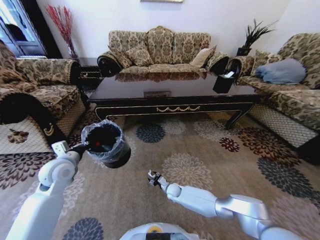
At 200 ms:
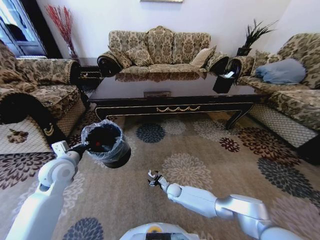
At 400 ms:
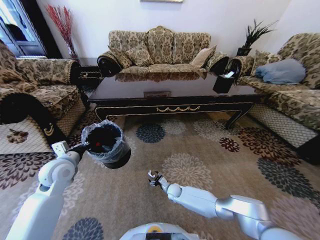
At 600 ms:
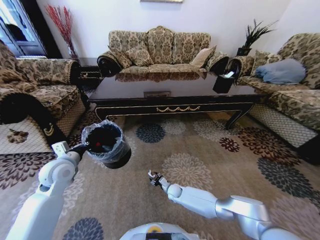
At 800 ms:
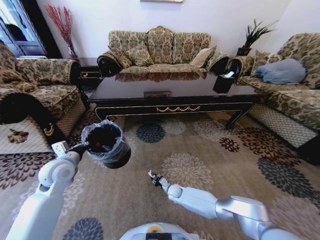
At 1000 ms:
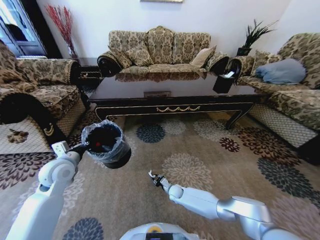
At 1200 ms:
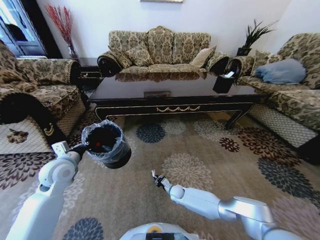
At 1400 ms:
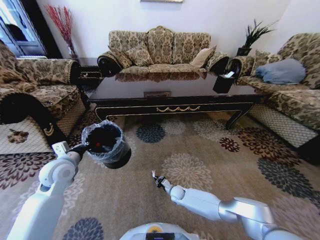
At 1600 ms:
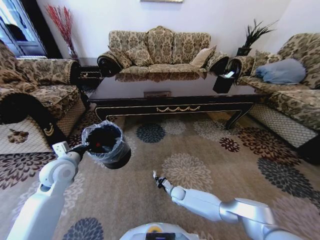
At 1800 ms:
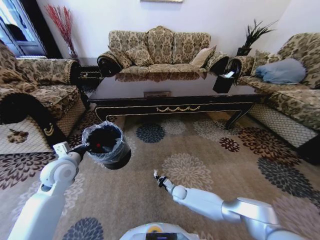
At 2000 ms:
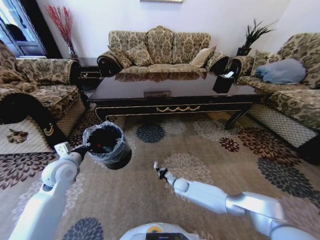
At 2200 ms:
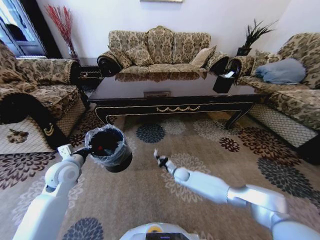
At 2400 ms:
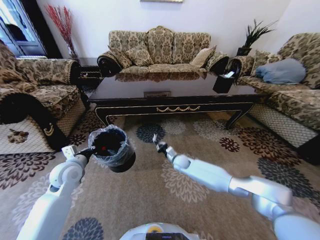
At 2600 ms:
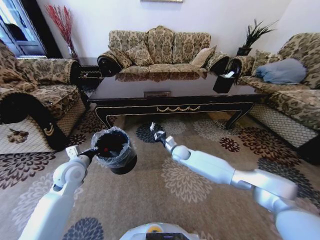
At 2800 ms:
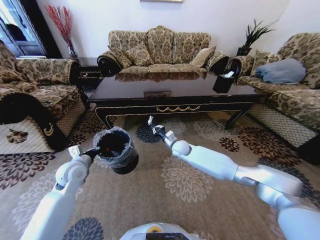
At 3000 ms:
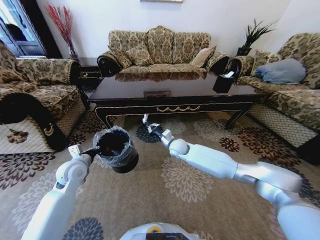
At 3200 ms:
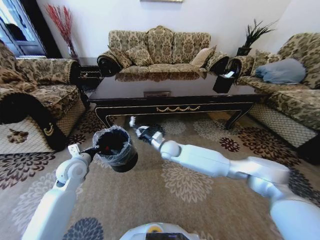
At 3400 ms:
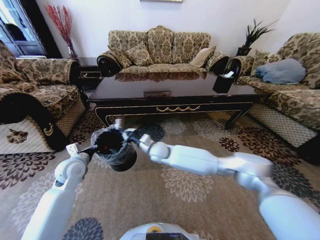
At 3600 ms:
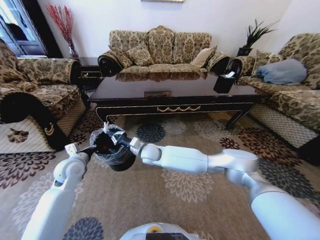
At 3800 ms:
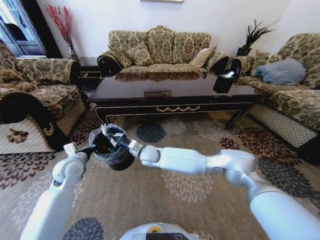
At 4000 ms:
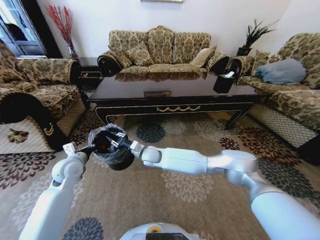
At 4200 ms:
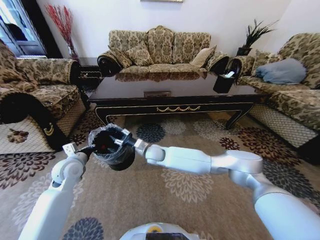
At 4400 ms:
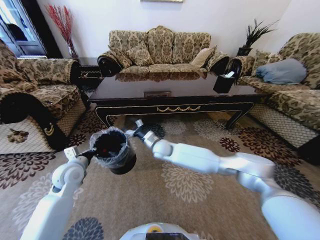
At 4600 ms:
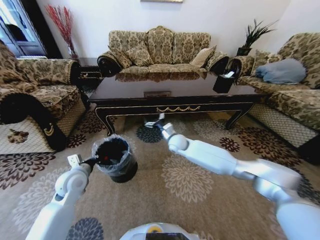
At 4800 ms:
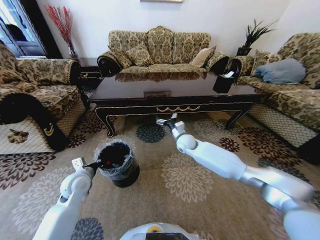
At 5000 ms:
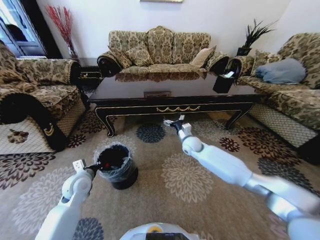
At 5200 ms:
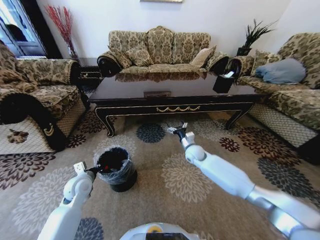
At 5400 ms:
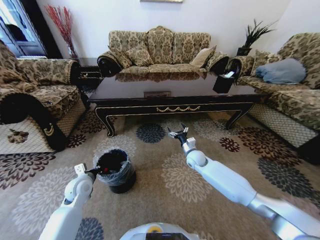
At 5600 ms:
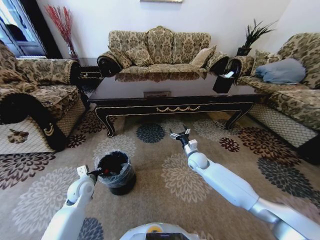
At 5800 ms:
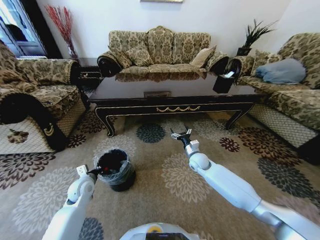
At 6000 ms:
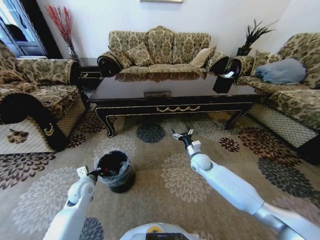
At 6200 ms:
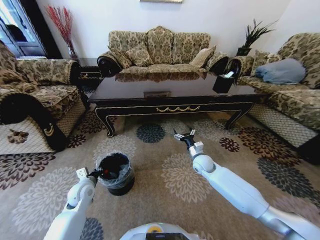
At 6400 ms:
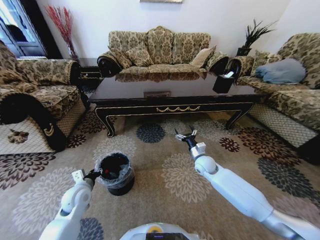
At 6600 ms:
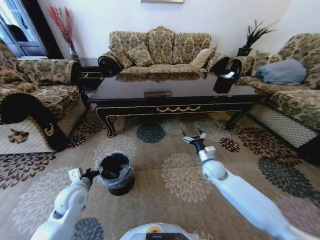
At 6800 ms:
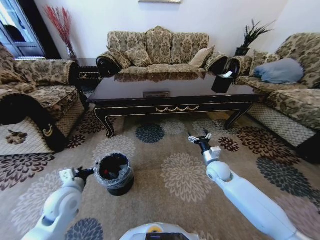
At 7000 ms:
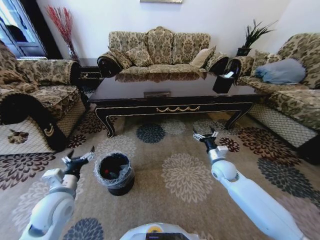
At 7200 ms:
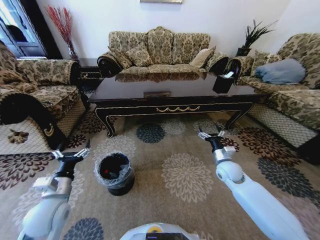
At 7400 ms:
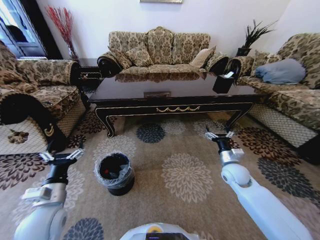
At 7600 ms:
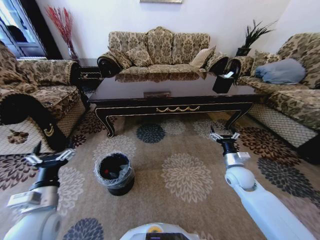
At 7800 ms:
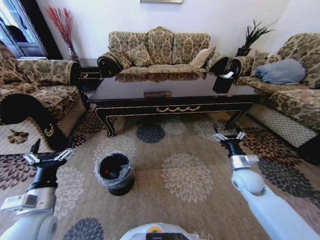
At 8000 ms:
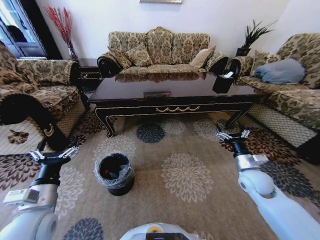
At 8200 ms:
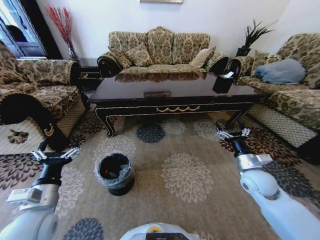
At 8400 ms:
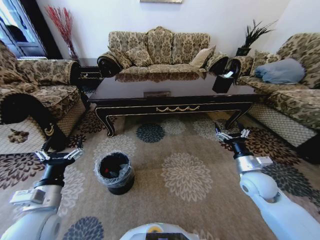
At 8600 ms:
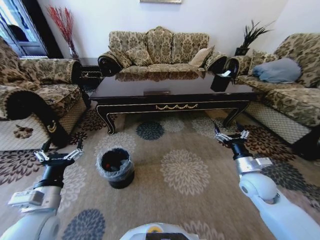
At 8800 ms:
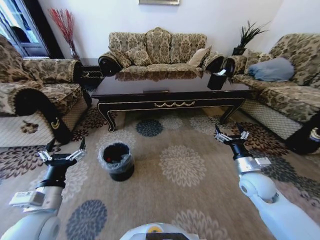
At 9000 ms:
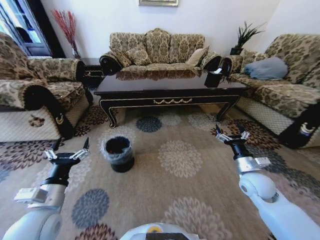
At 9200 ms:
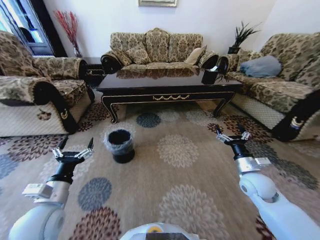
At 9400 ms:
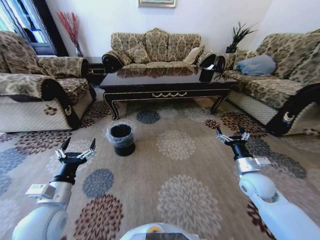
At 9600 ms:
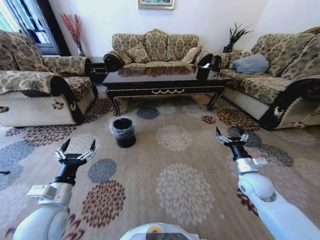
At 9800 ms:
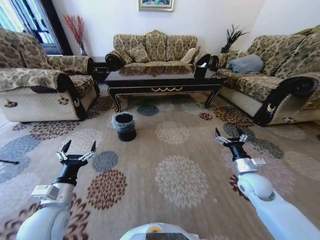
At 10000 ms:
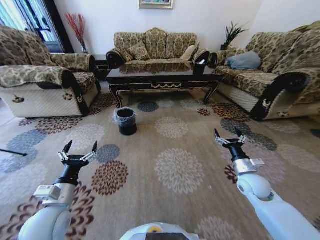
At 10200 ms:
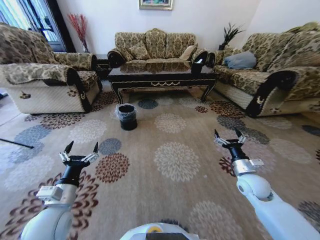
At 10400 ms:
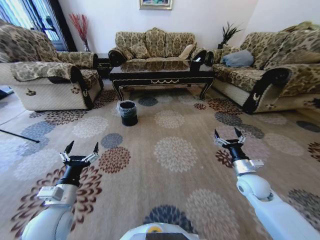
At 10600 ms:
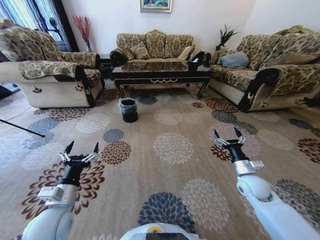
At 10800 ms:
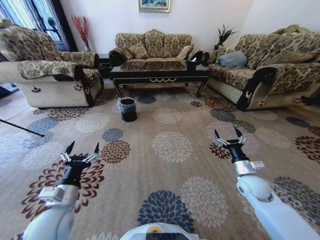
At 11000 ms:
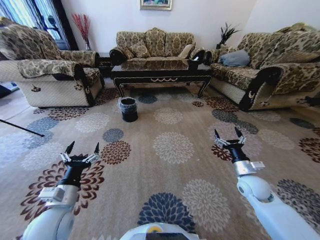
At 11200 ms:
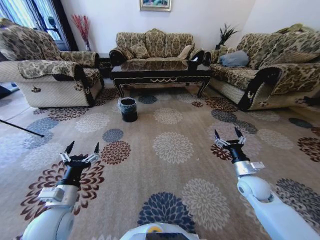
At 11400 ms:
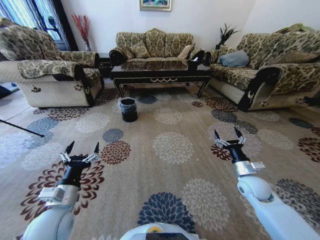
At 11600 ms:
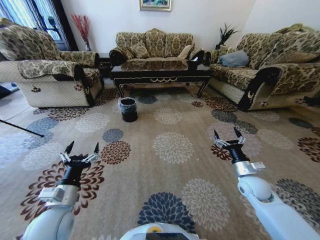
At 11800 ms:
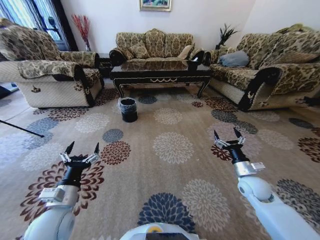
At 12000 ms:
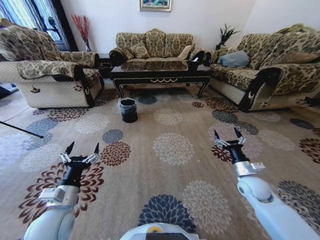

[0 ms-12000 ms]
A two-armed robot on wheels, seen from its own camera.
Task of the whole recording: Move to the front of the table and pick up the trash from the floor, then place it into the trash bin.
0 ms to 1600 ms: The right gripper closes up.
1600 ms to 3000 ms: The right gripper moves upward and forward, approximately 30 cm.
3000 ms to 4400 ms: The right gripper moves to the left, some 5 cm, and opens up.
4400 ms to 6000 ms: The right gripper goes roughly 20 cm to the right. The left gripper heads downward, covering roughly 10 cm.
6000 ms to 7600 ms: The left gripper shifts some 20 cm backward and upward, and opens its fingers. Meanwhile the right gripper is displaced to the right and backward by some 15 cm.
7600 ms to 9000 ms: The right gripper changes place by some 5 cm.

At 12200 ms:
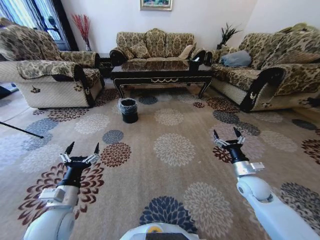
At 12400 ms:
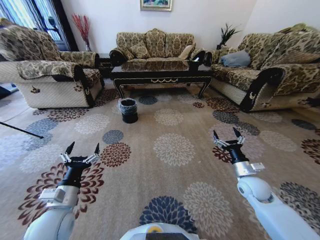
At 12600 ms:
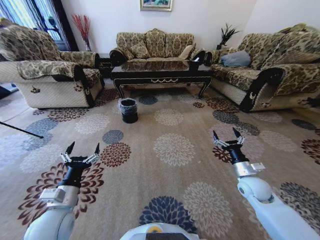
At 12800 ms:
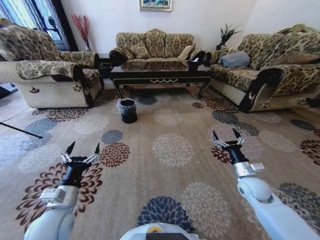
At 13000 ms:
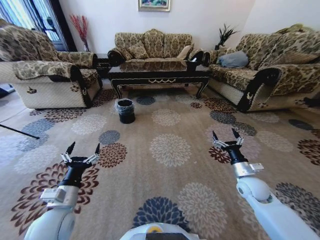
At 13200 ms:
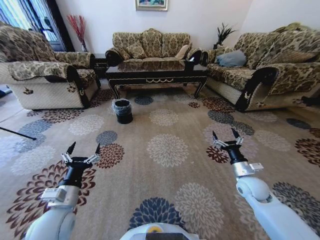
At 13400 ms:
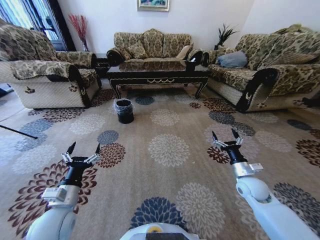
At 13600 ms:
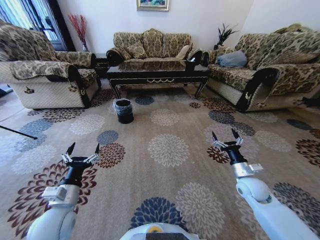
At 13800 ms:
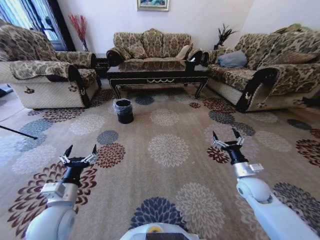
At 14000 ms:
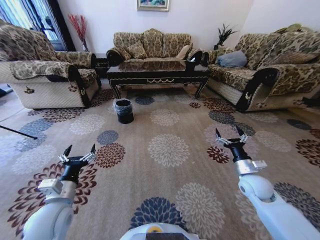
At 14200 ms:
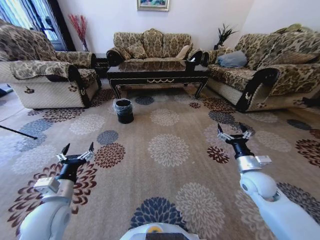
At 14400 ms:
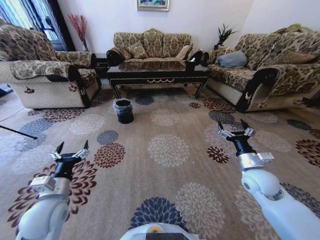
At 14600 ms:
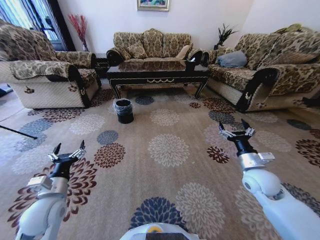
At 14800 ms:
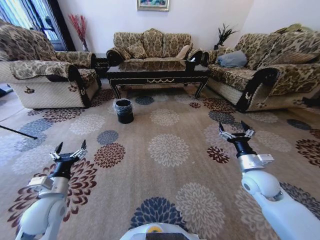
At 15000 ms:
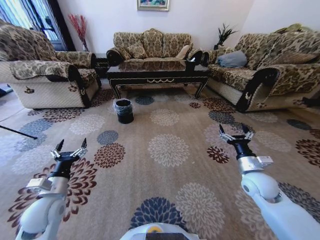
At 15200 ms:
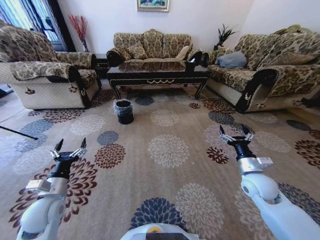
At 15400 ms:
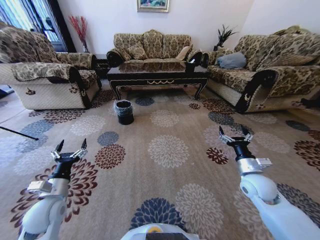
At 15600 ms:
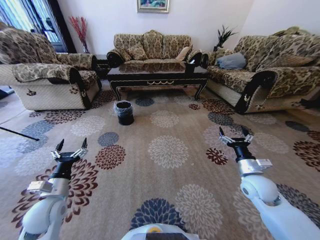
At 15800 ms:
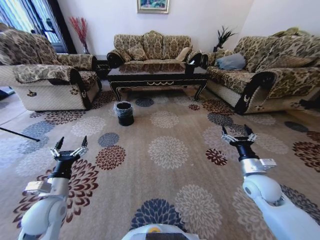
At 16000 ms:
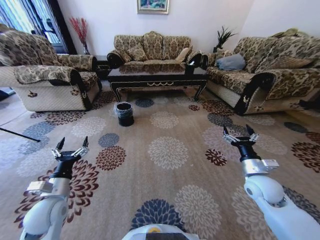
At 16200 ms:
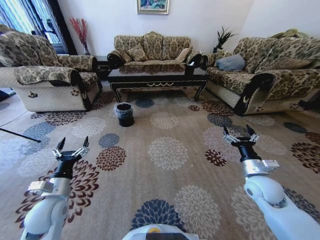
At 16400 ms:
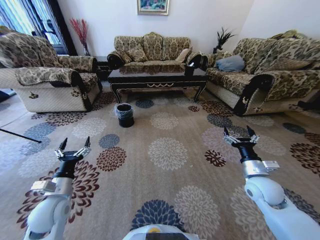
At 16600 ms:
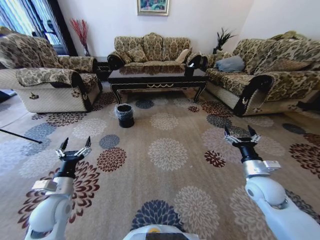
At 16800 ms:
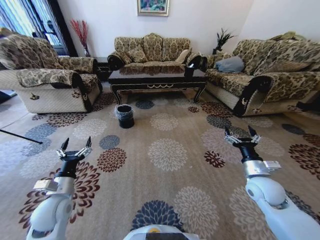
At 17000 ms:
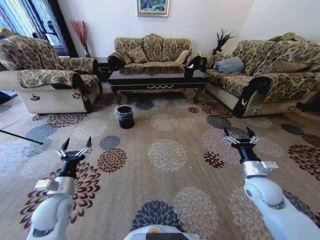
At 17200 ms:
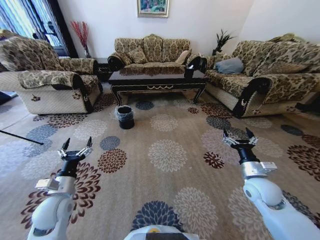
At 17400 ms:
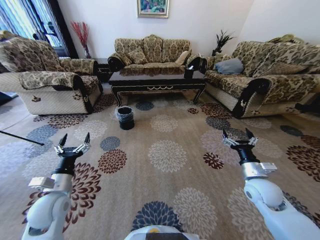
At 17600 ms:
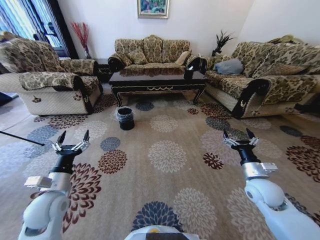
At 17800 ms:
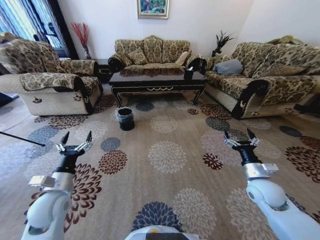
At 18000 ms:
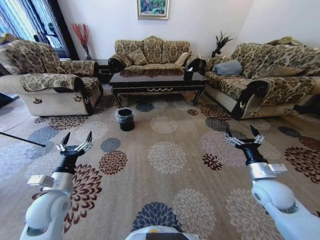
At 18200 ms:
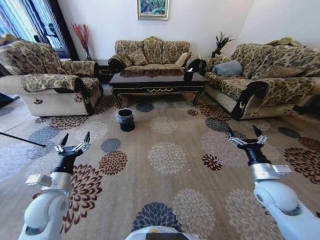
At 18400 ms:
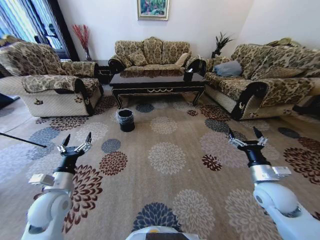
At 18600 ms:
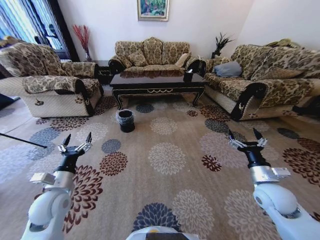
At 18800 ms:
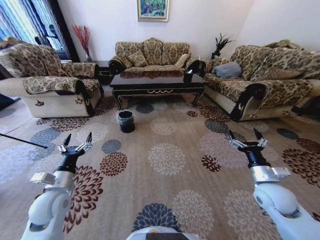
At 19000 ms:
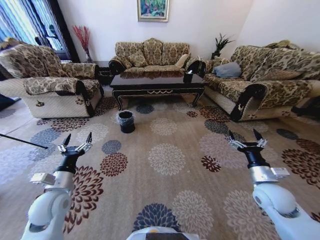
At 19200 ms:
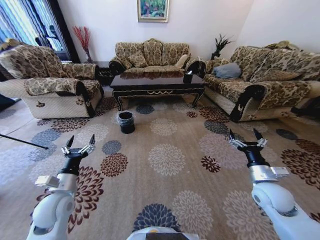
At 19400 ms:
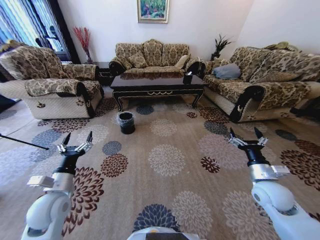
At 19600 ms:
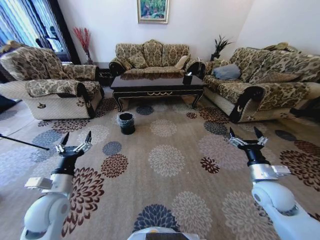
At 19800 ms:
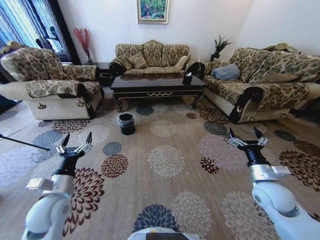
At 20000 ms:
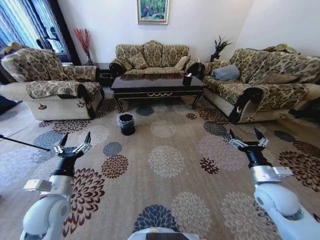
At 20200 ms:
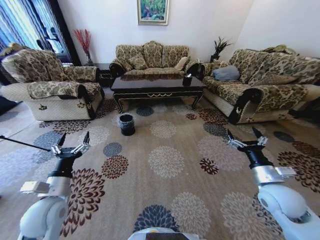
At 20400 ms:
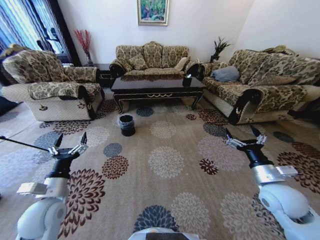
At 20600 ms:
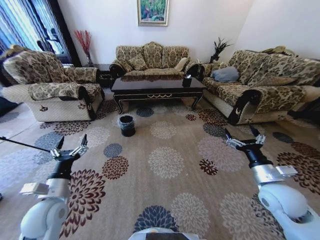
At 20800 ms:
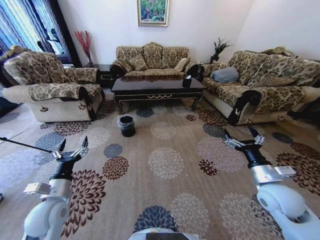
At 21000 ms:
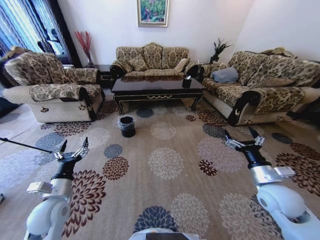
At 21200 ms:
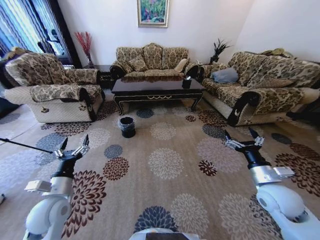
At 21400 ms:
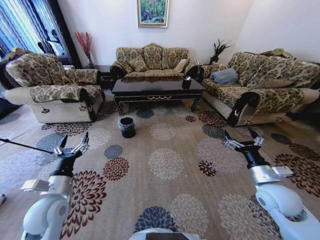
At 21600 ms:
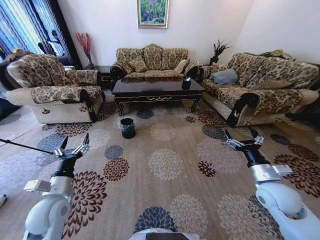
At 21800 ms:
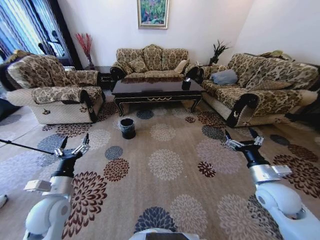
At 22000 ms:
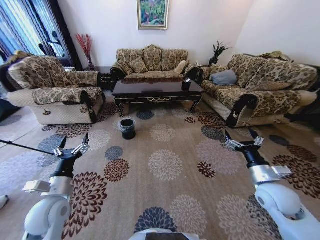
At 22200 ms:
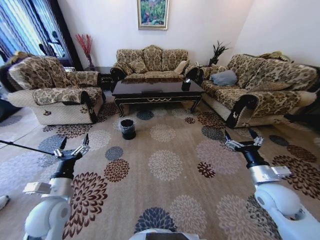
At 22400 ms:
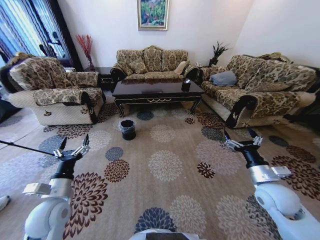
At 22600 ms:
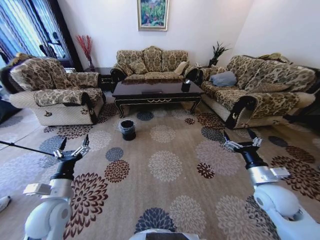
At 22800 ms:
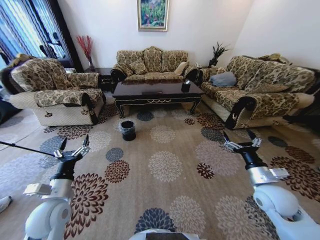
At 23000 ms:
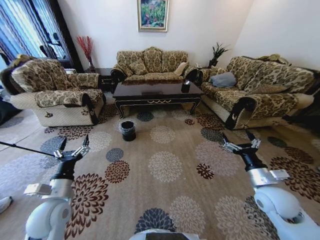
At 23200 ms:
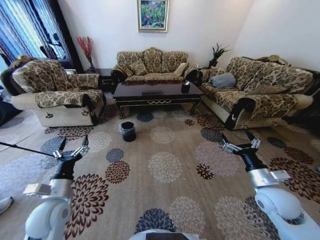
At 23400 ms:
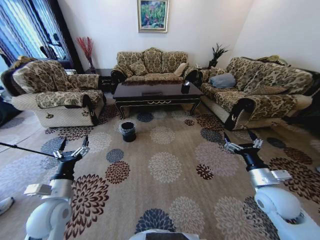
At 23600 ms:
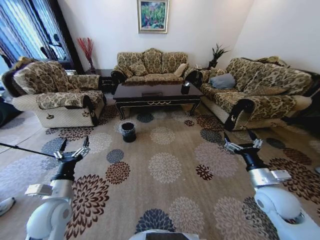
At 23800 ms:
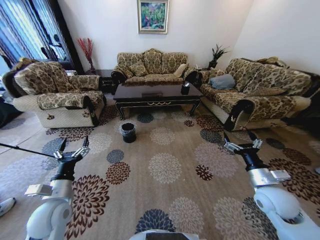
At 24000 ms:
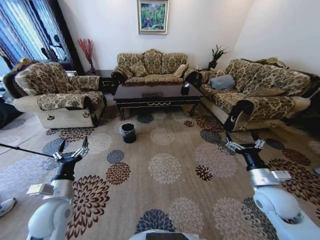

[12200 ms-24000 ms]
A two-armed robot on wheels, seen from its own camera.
Task of the whole recording: Move to the front of the table and pick up the trash from the floor, then place it into the trash bin.
13600 ms to 15200 ms: The right gripper moves upward, approximately 5 cm, while the left gripper is displaced to the left by approximately 5 cm.
